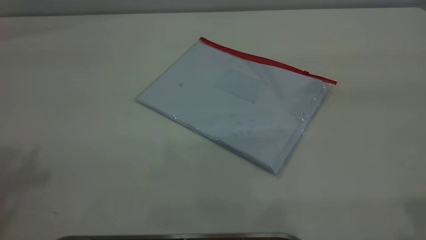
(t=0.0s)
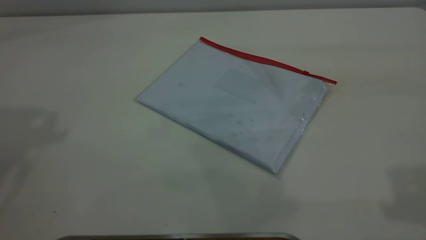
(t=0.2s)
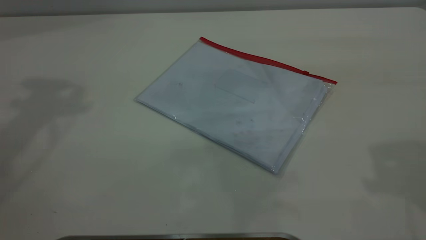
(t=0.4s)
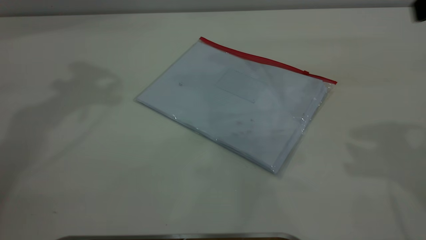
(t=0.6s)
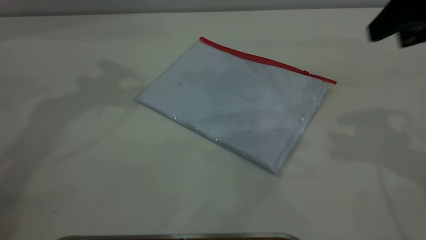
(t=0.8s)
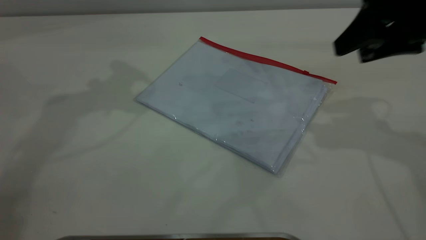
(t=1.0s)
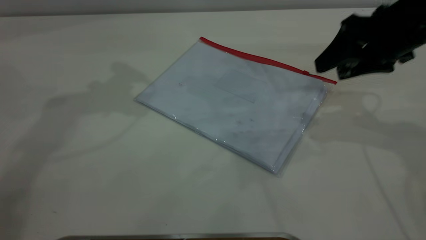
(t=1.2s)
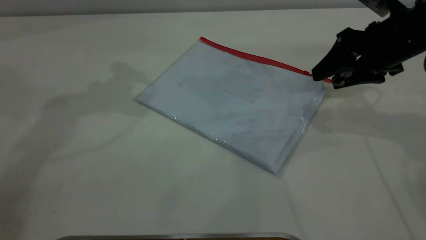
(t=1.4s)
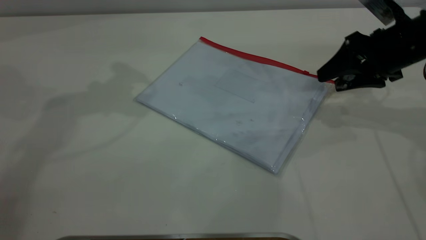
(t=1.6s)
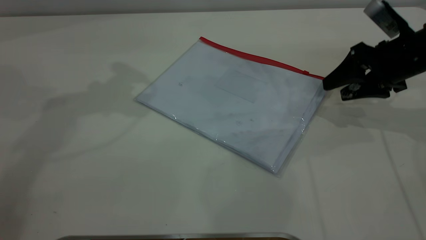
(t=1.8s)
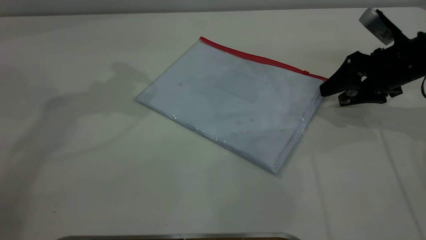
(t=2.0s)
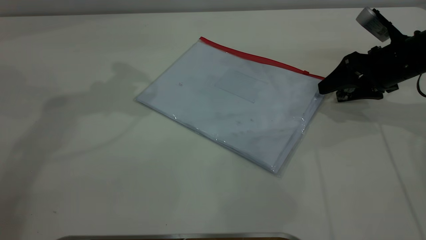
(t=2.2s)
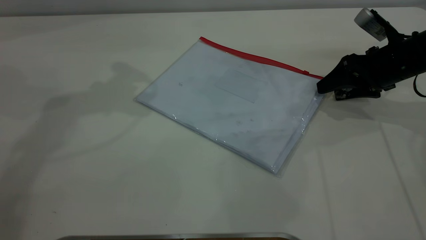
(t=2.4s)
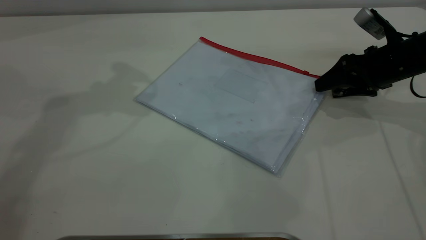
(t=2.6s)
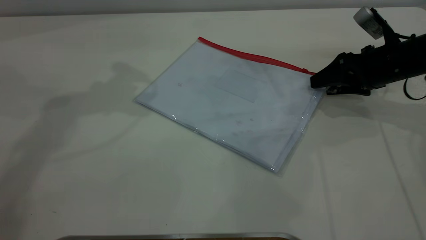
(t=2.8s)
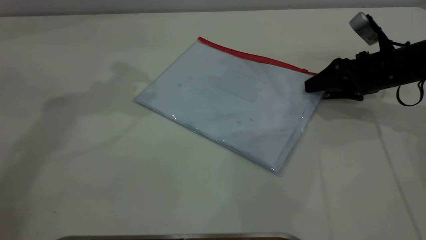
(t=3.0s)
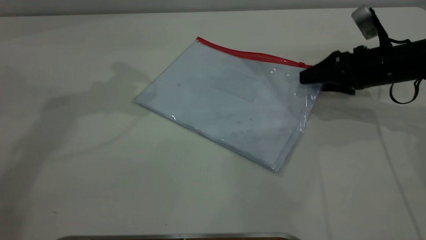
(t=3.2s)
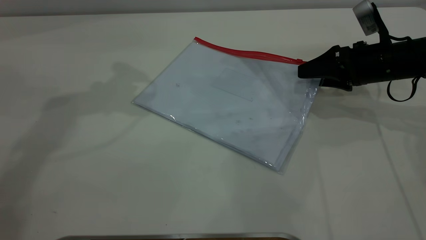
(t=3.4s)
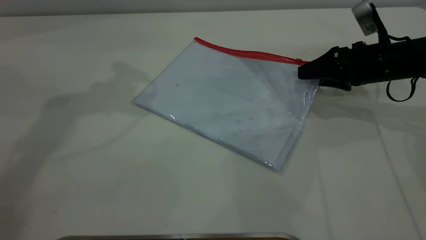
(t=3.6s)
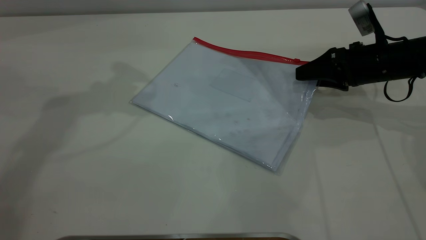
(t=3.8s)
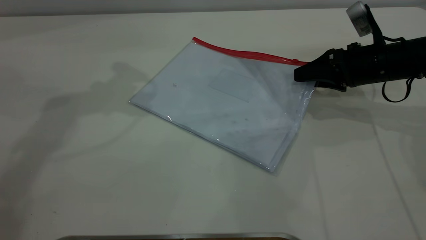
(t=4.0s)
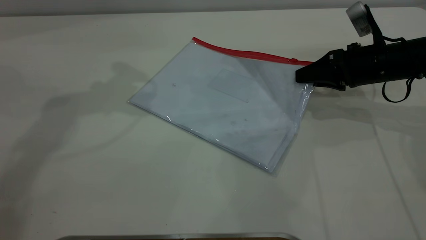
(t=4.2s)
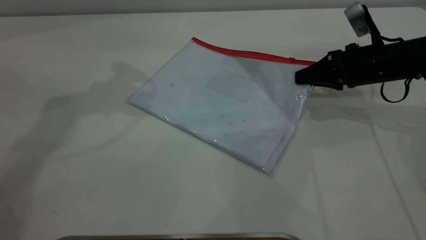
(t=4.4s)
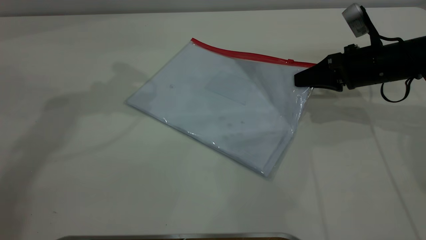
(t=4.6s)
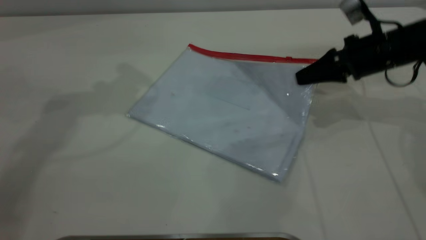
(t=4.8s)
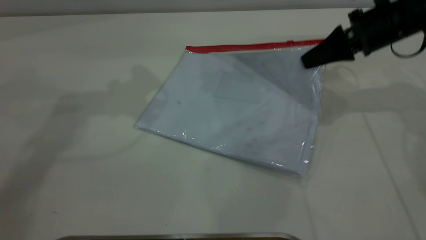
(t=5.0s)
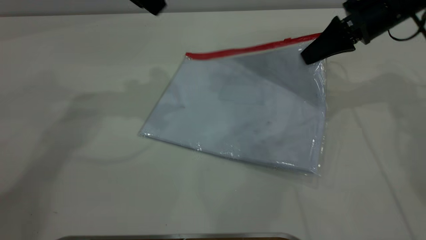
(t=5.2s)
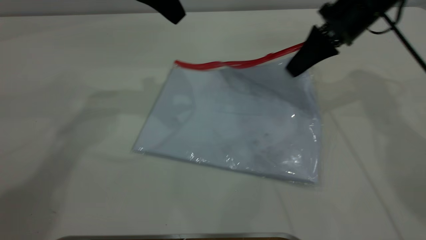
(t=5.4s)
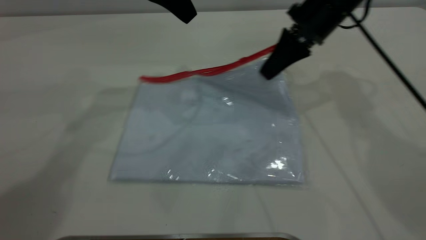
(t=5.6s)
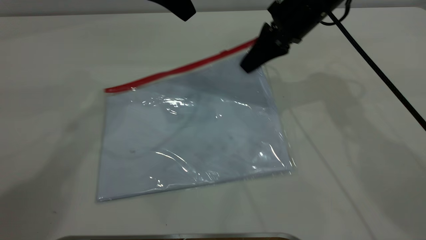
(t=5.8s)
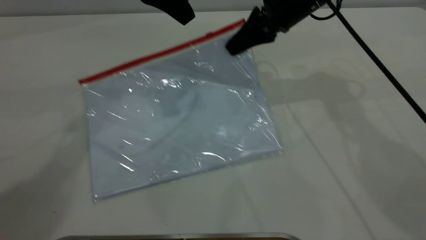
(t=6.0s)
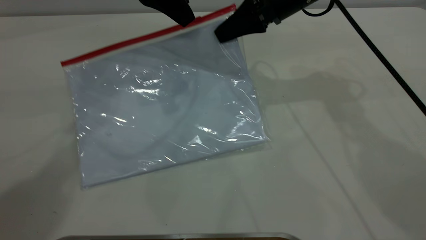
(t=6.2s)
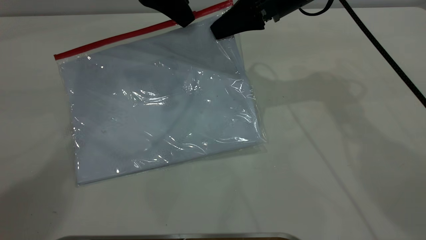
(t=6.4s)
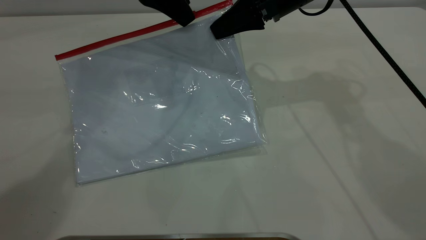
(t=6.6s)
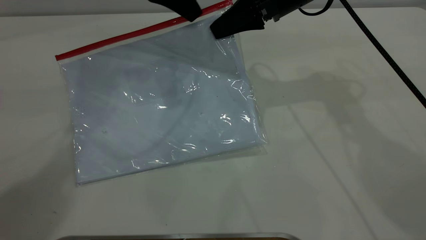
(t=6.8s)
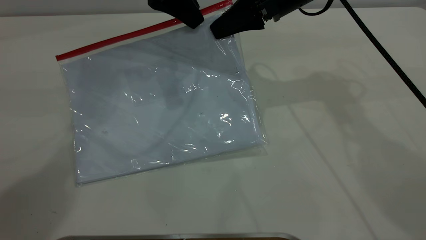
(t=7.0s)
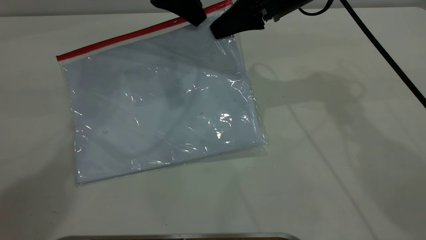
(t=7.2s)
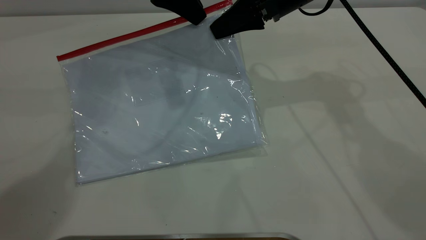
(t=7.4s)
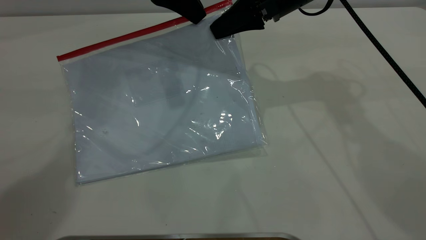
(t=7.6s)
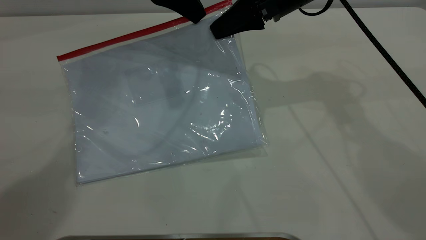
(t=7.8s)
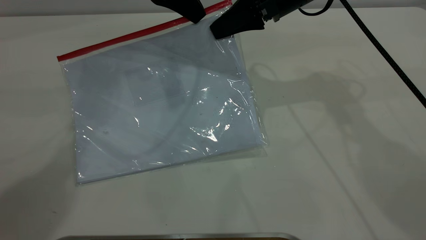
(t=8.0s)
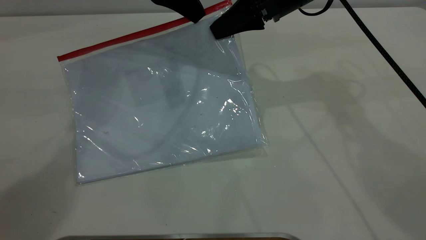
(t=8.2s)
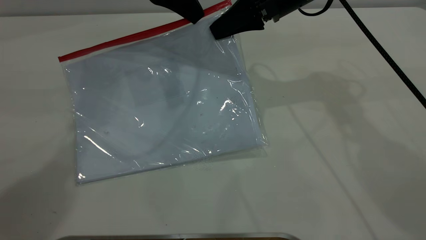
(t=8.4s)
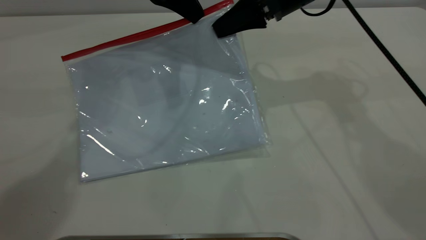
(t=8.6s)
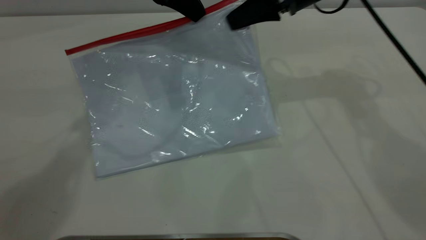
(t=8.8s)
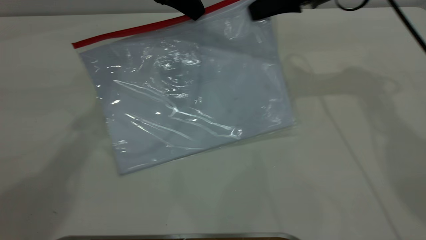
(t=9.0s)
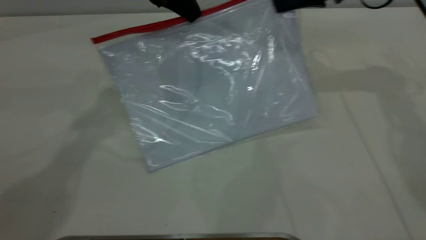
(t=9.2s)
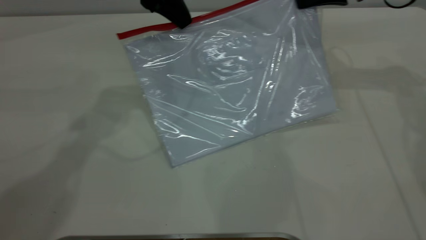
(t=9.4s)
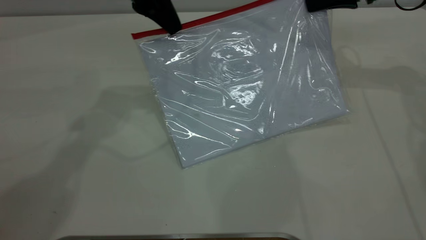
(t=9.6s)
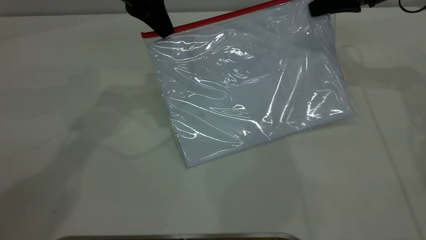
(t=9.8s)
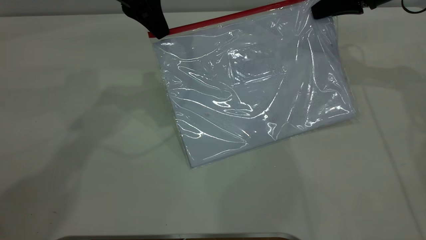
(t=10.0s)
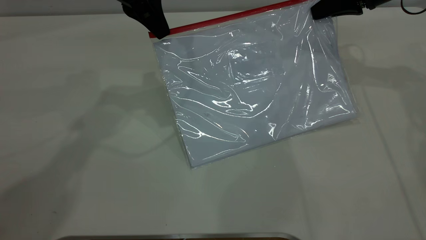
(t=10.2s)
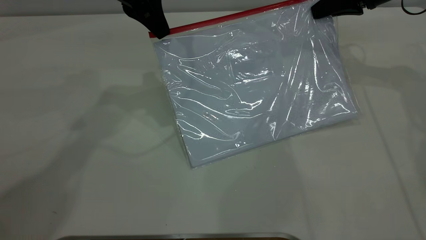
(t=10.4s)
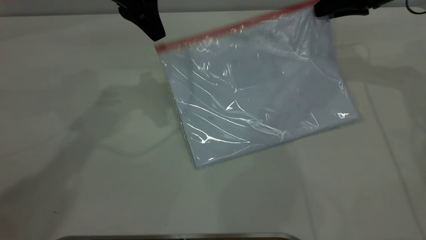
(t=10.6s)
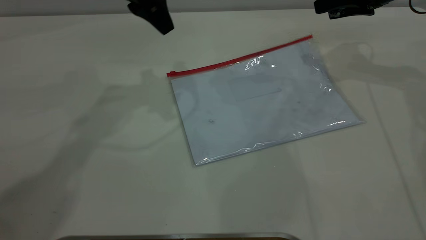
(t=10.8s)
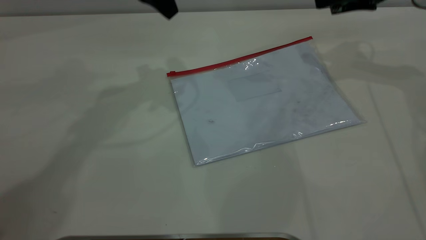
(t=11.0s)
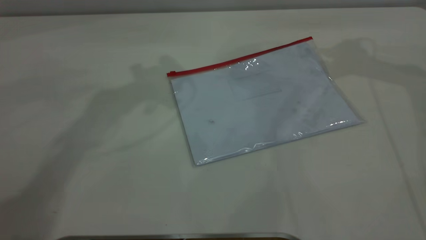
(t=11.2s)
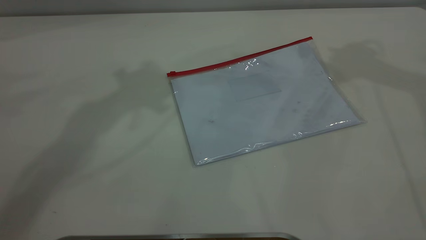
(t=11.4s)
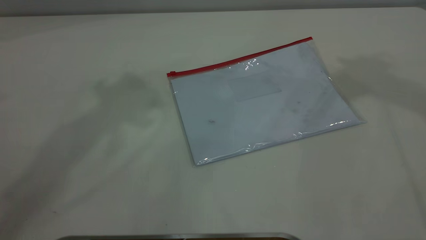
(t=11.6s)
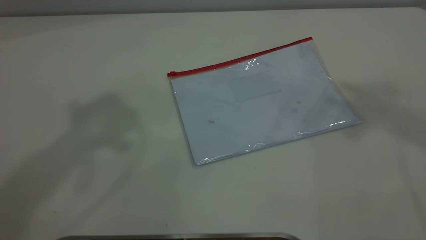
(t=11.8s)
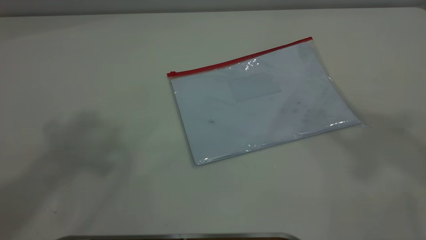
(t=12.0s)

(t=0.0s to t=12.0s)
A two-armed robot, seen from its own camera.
Step, t=0.0s - t=5.8s: Pick up the transparent plastic bag with the right gripper.
Step, t=6.0s - t=10.4s: Pulling up the zipper on the transparent plastic bag with the left gripper to close it.
Step, t=10.6s - t=11.2s: Place the transparent plastic bag.
t=0.0s - t=1.6s: The right gripper moves downward and forward, approximately 35 cm.
t=1.6s - t=3.0s: The right gripper travels downward by roughly 5 cm.
t=3.0s - t=4.4s: The right gripper closes its fingers.
t=4.4s - t=6.0s: The left gripper is displaced to the right by approximately 10 cm; the right gripper travels to the left and upward by some 15 cm.
t=6.0s - t=7.6s: The left gripper closes its fingers.
t=7.6s - t=9.0s: The right gripper shifts about 10 cm to the right.
t=9.0s - t=10.4s: The right gripper shifts some 10 cm to the right.
t=10.4s - t=12.0s: Both grippers move upward and backward, roughly 40 cm. The left gripper opens up. The right gripper opens.
